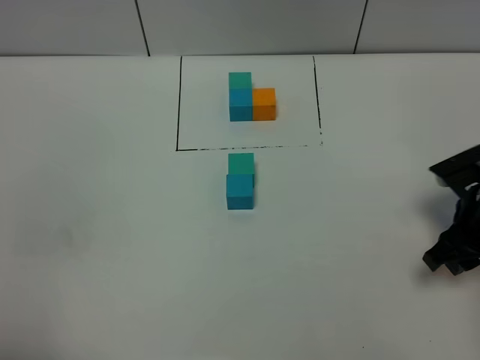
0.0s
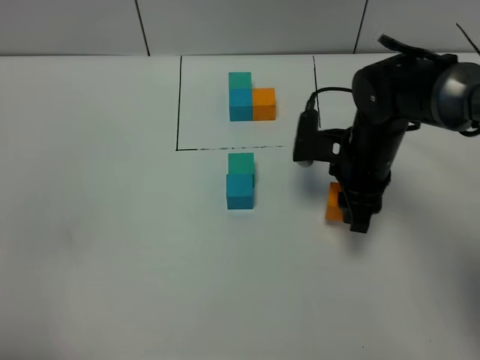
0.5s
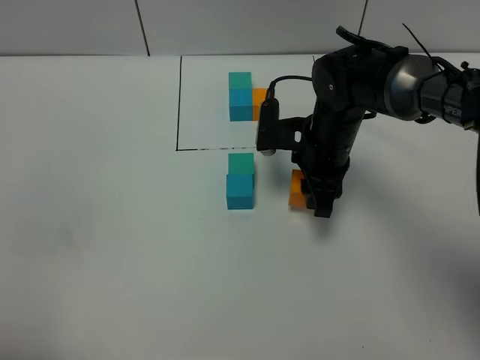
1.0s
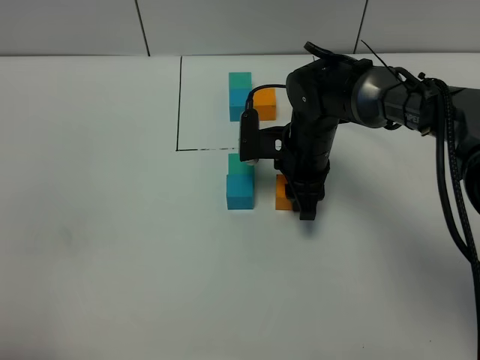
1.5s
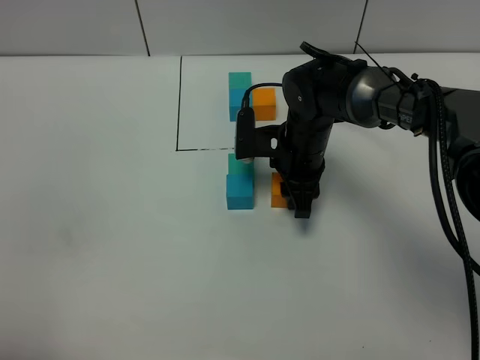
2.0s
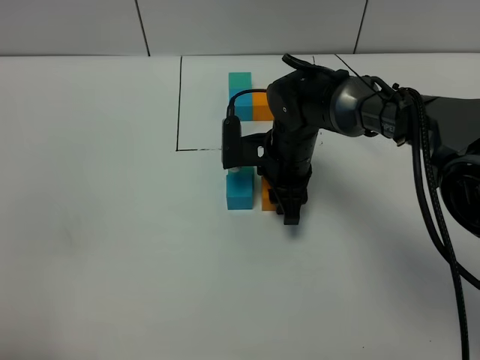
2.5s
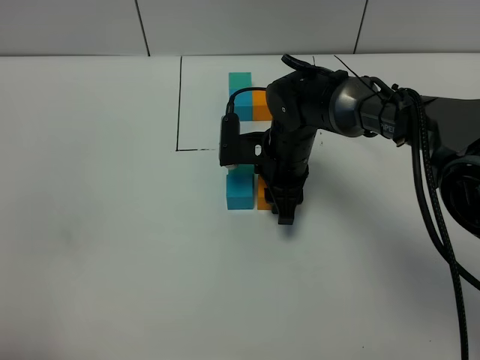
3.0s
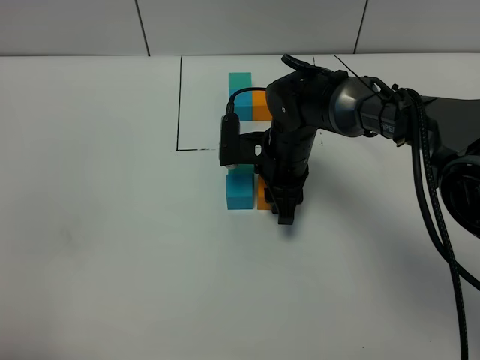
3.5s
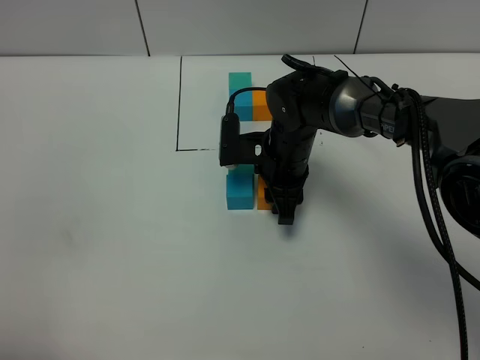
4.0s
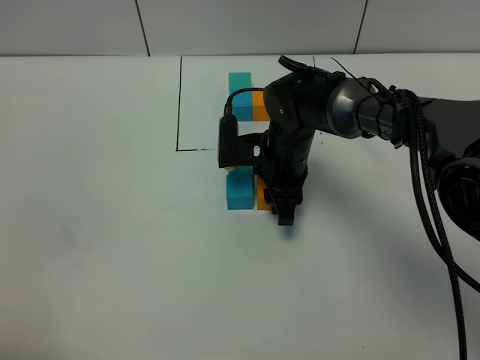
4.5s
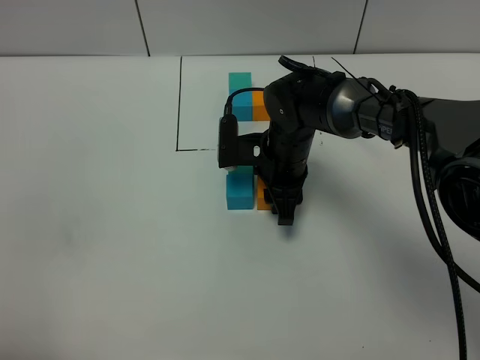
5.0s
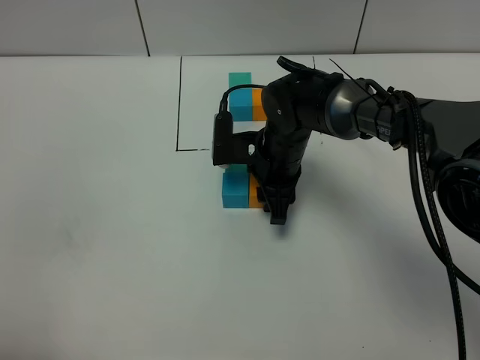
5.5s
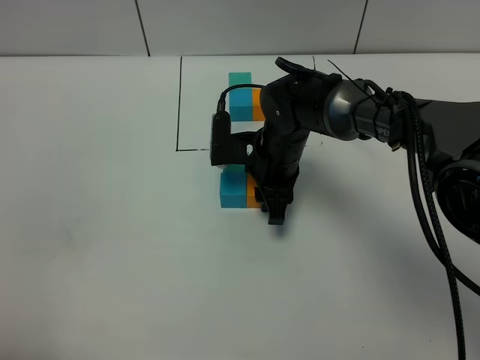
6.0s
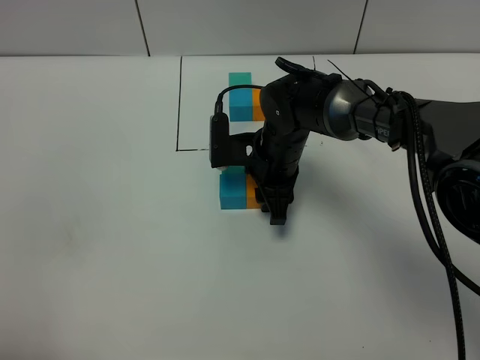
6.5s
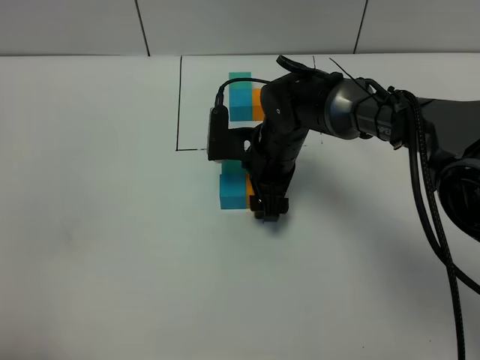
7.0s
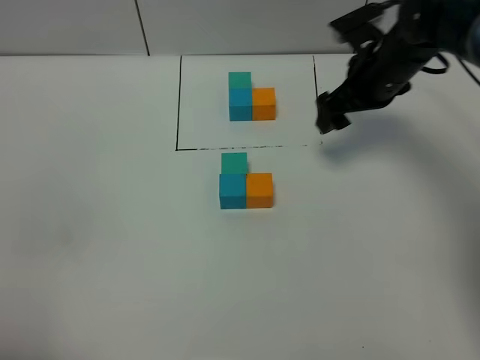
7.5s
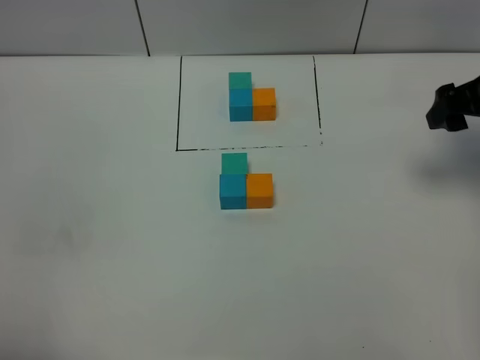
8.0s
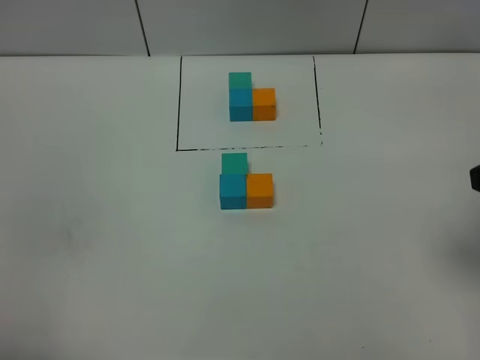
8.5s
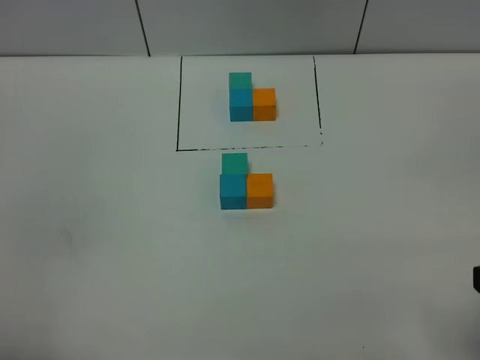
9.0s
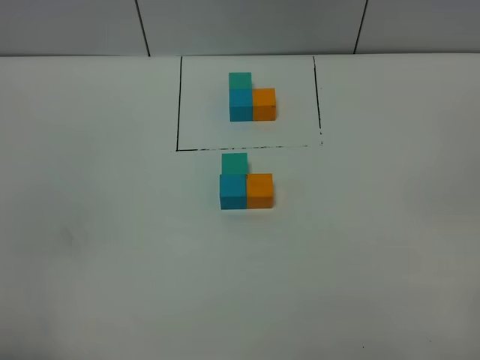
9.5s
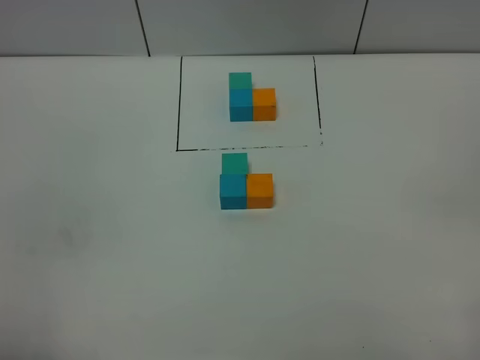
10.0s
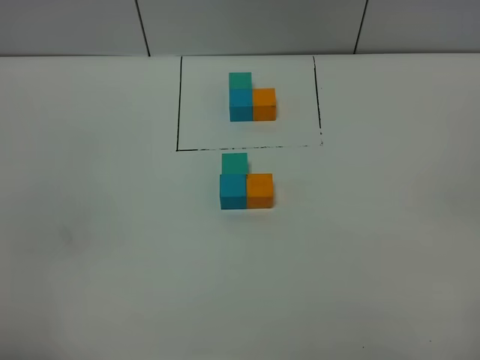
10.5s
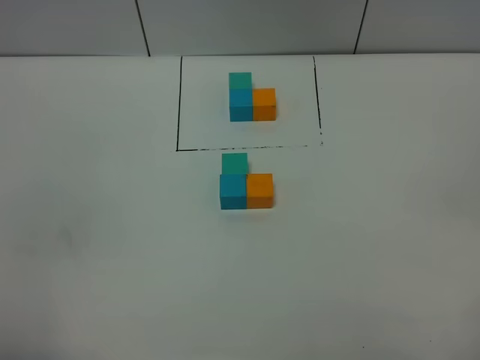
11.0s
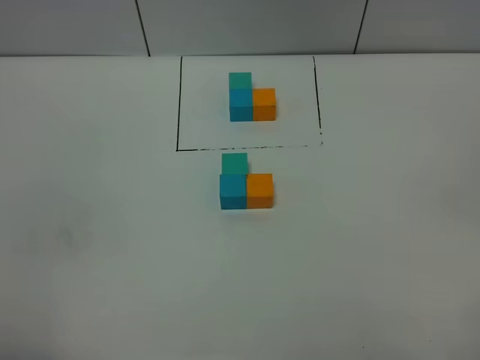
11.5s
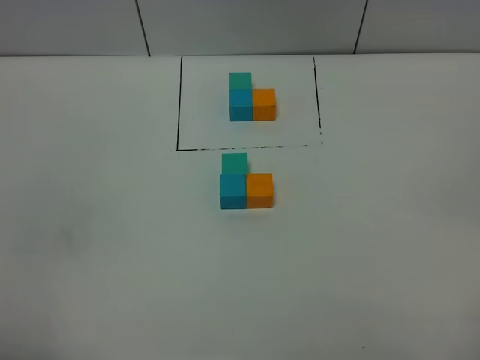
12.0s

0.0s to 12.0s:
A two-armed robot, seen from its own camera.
Task of the whole recording: According to the building block template in front, assemble the scattered blocks together.
Step, 0.0s to 6.5s: Put the orange build block on the right of the blue build block.
0.0s to 2.0s: The right gripper shifts some 25 cm to the left and forward.
2.0s to 4.0s: There are only small adjustments of the grippers.
4.0s to 6.0s: Neither gripper changes place.
6.0s to 8.0s: The right gripper heads to the right and upward, covering some 30 cm, and opens its fingers.
8.0s to 10.0s: The right gripper shifts about 35 cm backward.
10.0s to 12.0s: Both grippers stay about where they are.

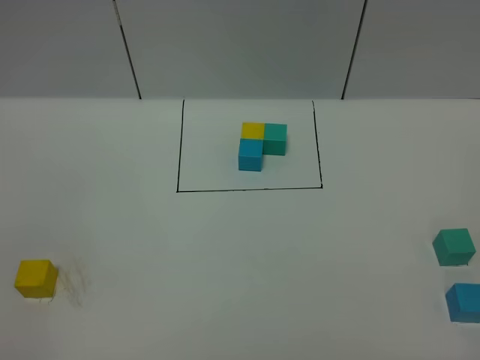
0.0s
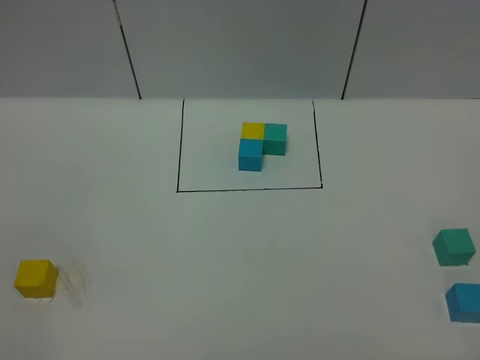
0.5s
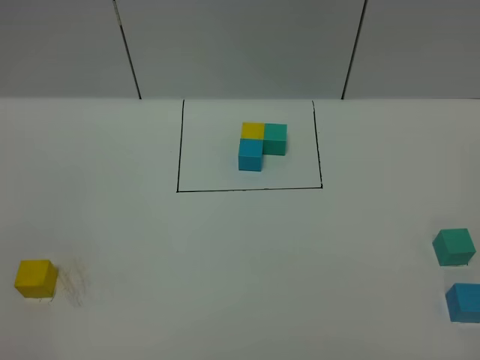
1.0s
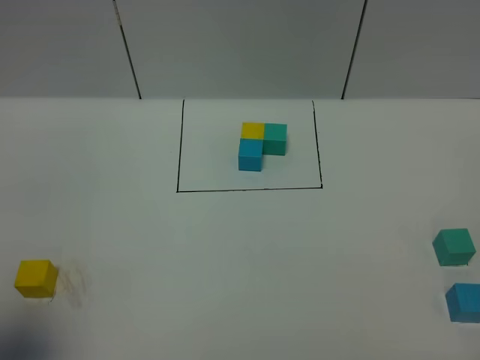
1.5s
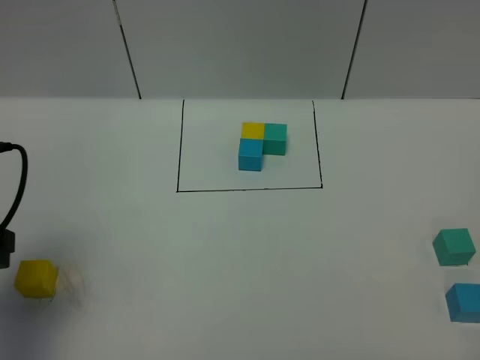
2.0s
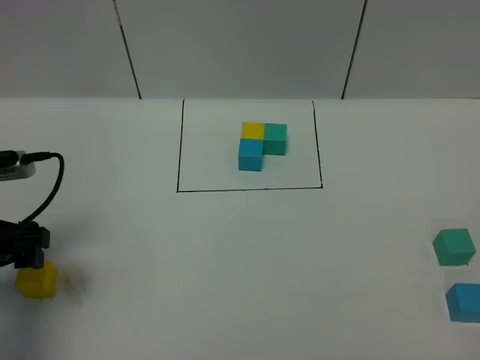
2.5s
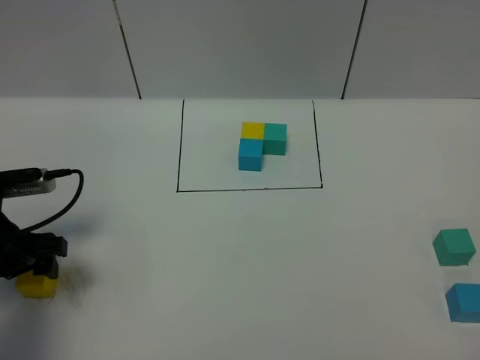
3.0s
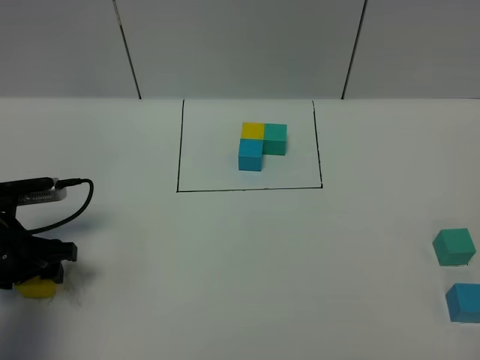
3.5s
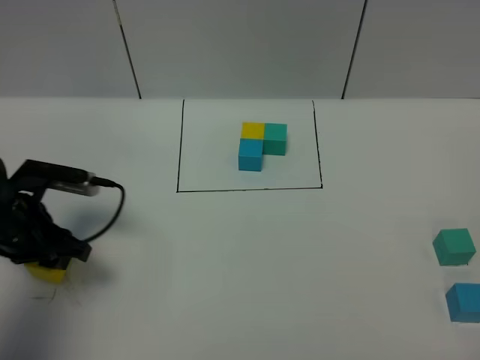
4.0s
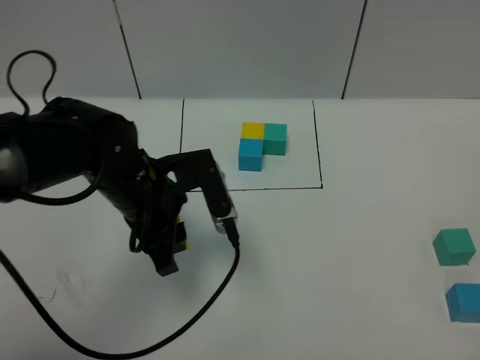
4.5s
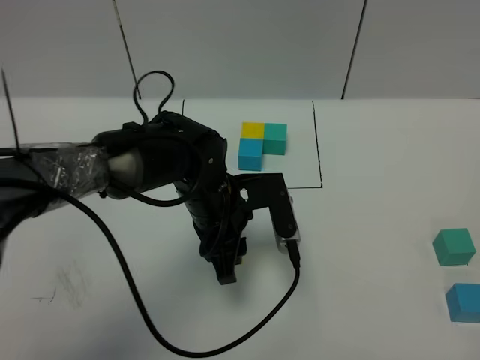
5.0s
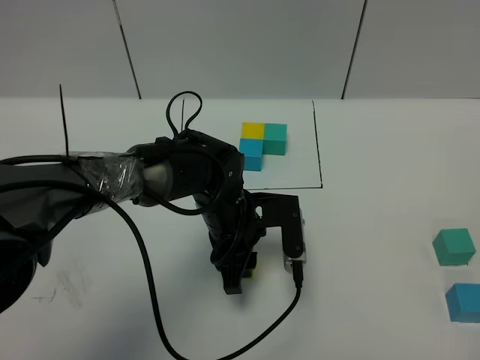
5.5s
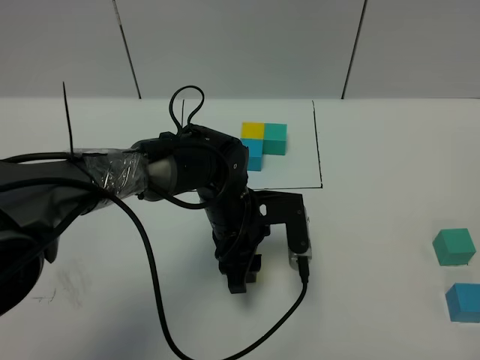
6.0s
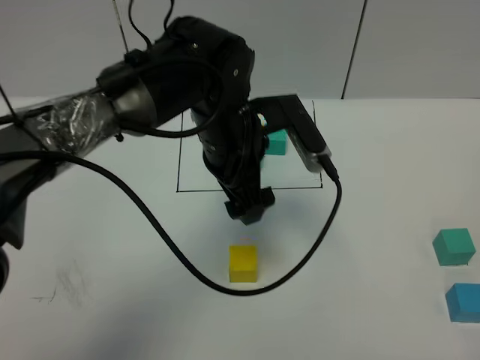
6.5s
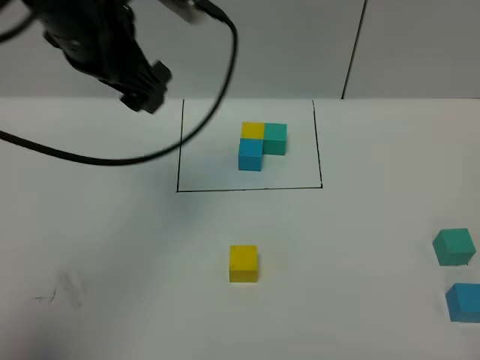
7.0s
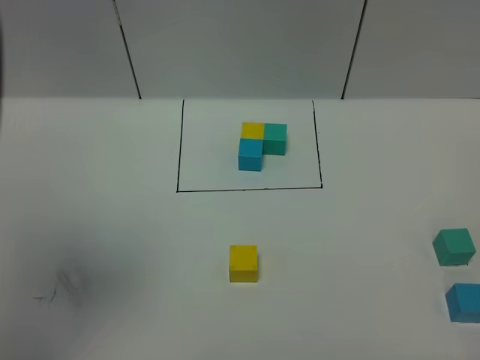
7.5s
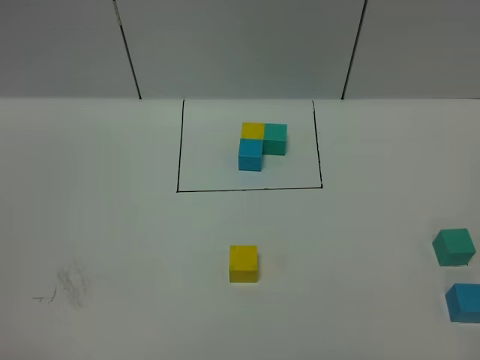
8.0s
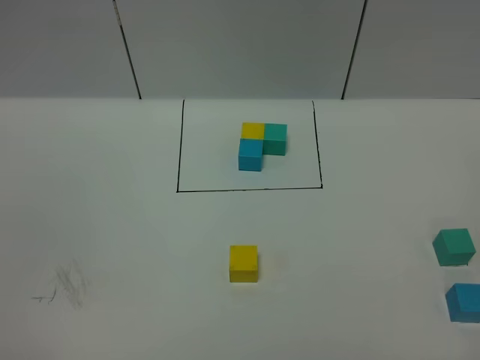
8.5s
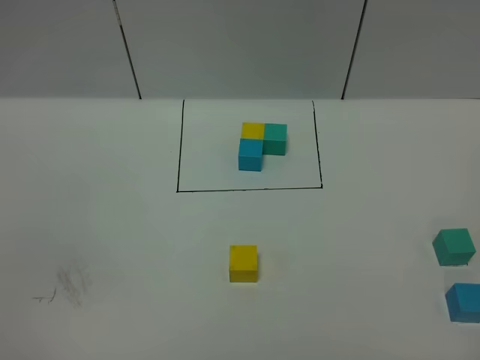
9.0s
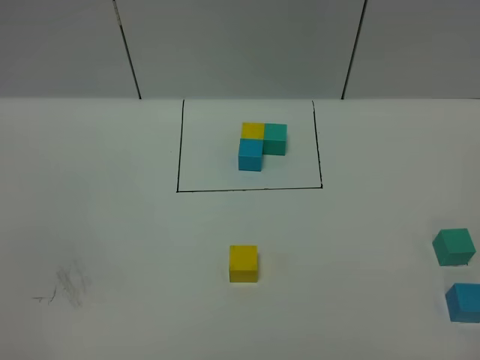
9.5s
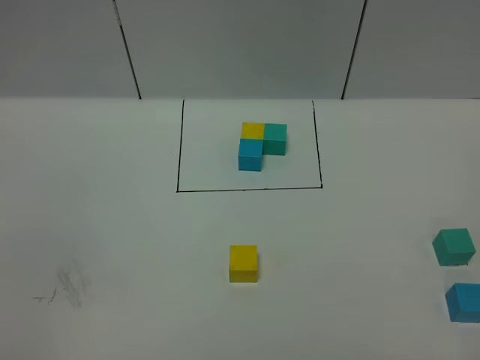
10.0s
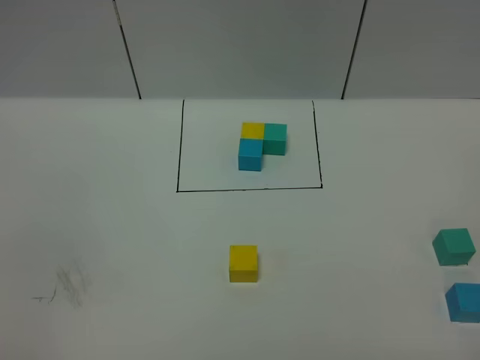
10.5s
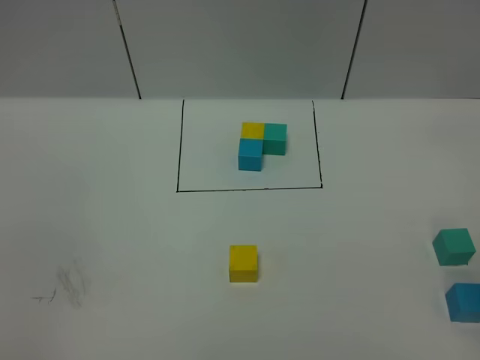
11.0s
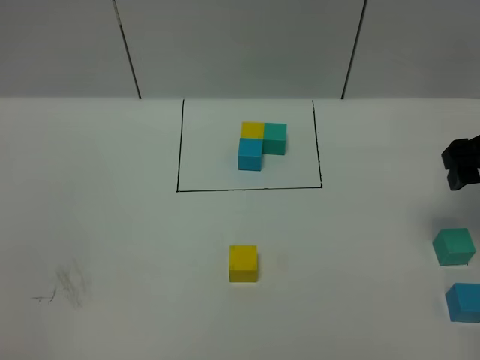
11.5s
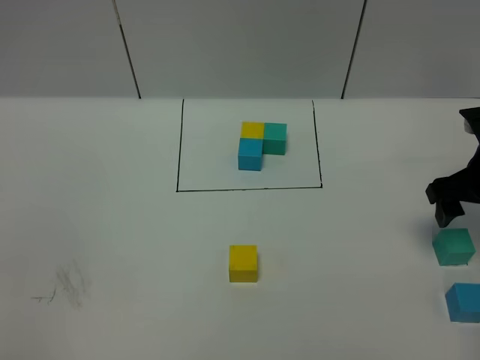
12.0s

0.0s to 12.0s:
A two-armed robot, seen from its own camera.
Task of the whole recording: According to the building block template in front, assemble the scattered blocks together.
Step, 2.0s to 6.5s: Put the yellow cube in the center of the table.
0.0s to 2.0s: The left gripper moves forward, roughly 20 cm, and opens its fingers.
2.0s to 4.0s: The left gripper heads downward and forward, covering about 15 cm, and closes.
4.0s to 6.0s: The left gripper shifts some 25 cm to the right.
6.0s to 8.0s: The left gripper shifts about 60 cm backward, upward and to the left, and opens its fingers.
10.0s to 12.0s: The right gripper moves forward, some 35 cm.

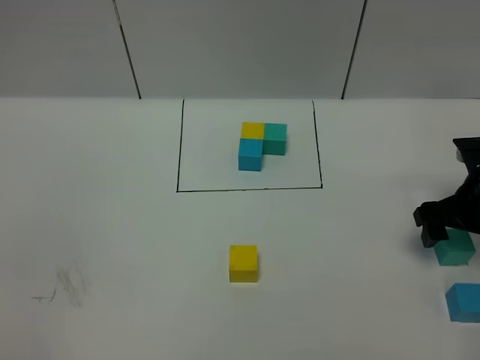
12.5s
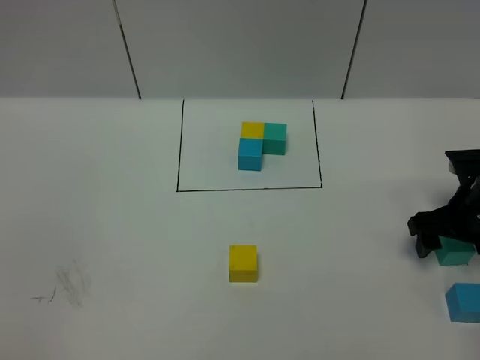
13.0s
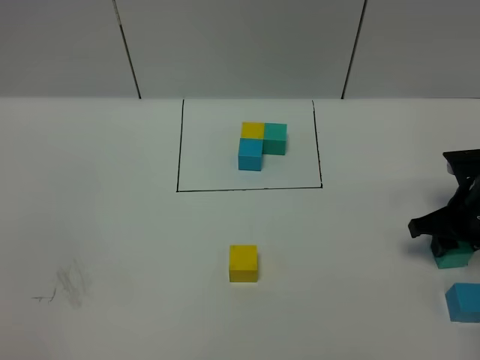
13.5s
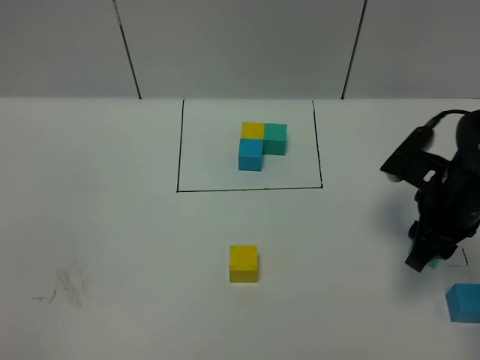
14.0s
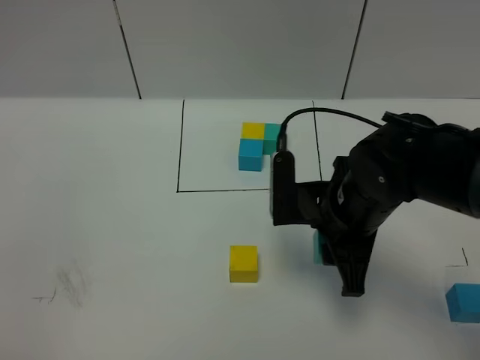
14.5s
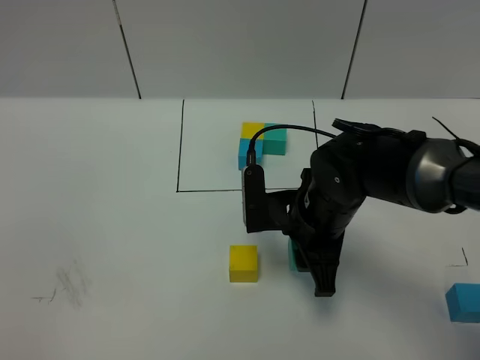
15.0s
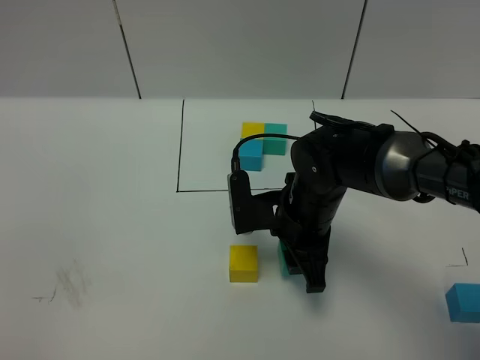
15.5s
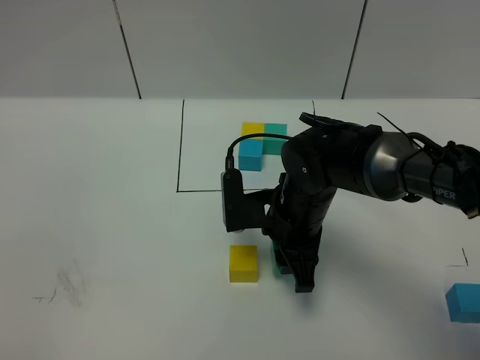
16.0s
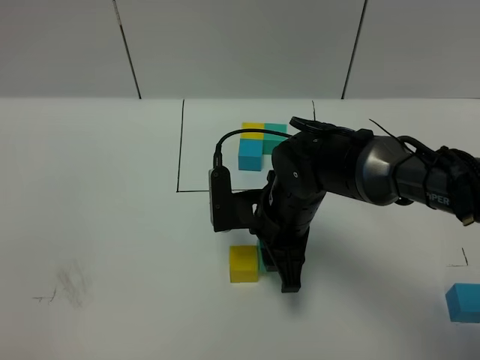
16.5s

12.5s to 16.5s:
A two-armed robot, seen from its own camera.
Task of the whole recording: According to the building block template in front, assemble the scattered blocks together.
12.5s to 14.5s: The right gripper heads to the left, covering about 20 cm, and closes its fingers.
14.5s to 16.5s: The right gripper goes approximately 5 cm to the left.
